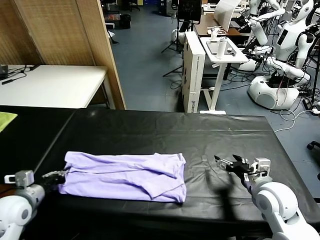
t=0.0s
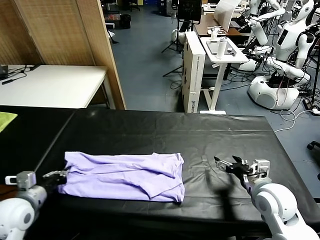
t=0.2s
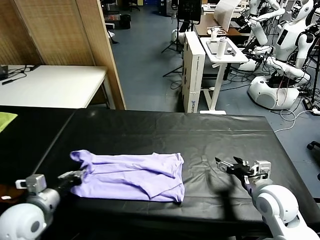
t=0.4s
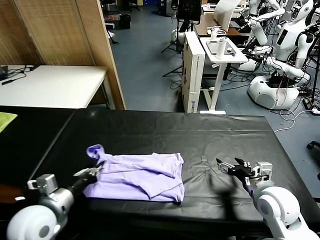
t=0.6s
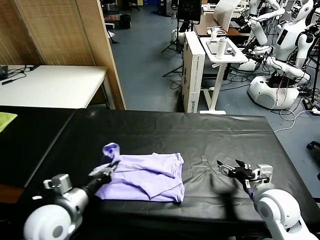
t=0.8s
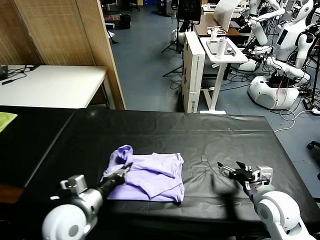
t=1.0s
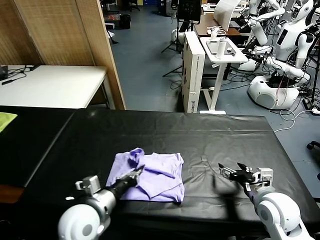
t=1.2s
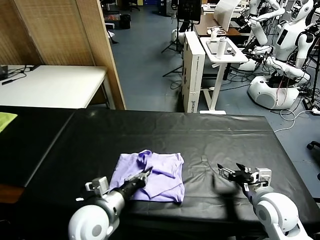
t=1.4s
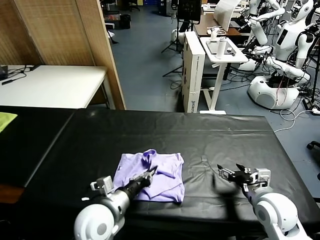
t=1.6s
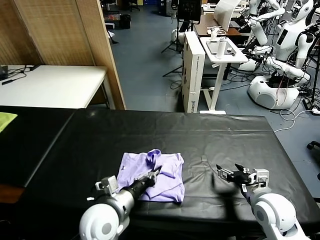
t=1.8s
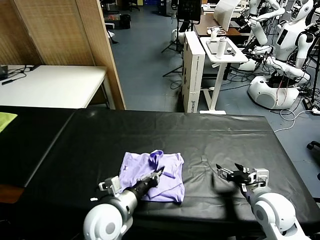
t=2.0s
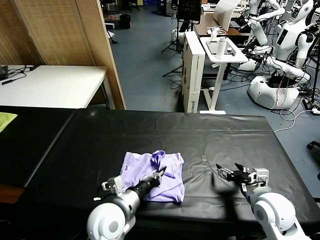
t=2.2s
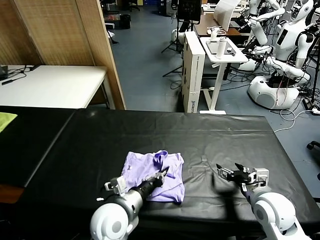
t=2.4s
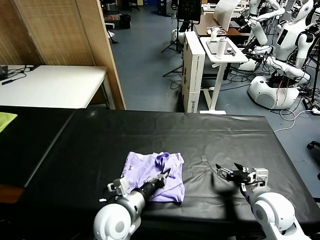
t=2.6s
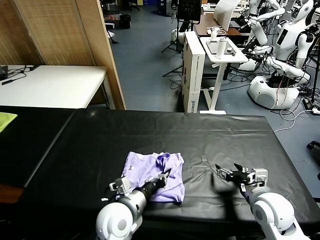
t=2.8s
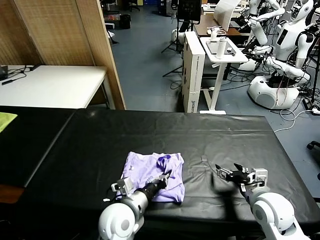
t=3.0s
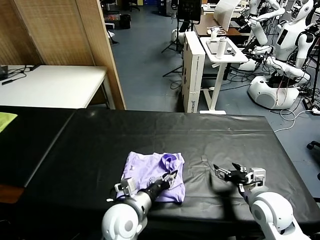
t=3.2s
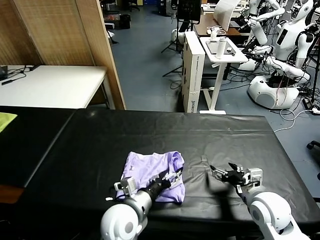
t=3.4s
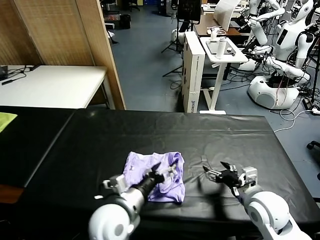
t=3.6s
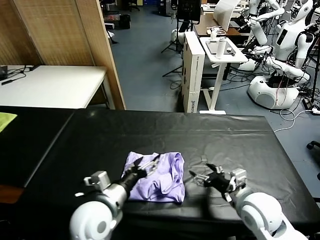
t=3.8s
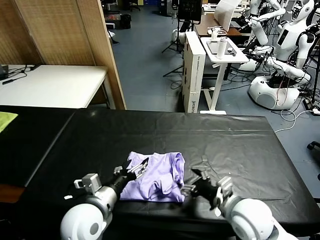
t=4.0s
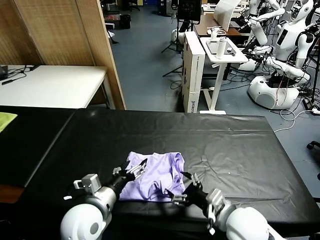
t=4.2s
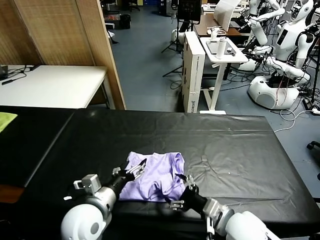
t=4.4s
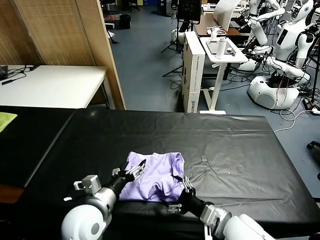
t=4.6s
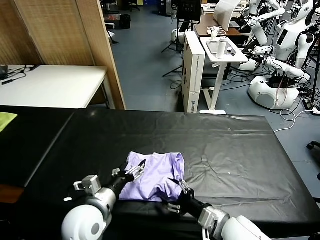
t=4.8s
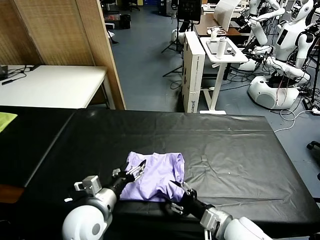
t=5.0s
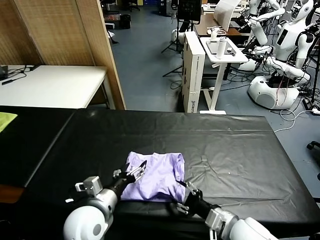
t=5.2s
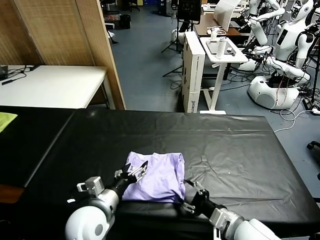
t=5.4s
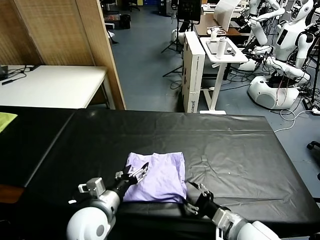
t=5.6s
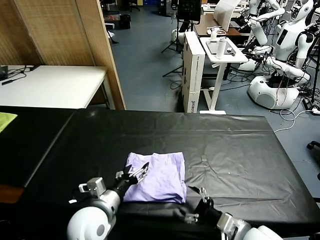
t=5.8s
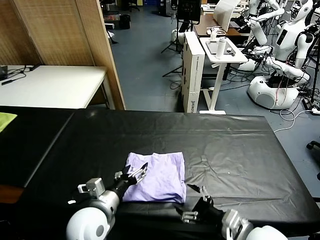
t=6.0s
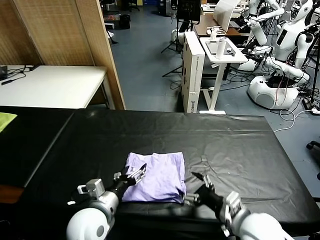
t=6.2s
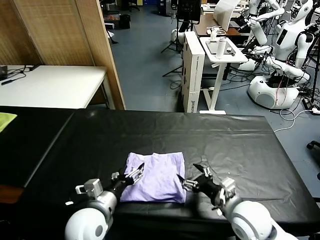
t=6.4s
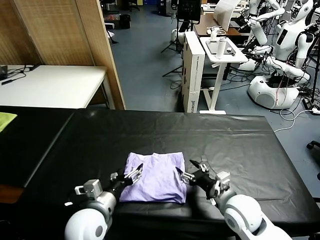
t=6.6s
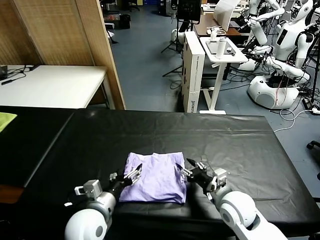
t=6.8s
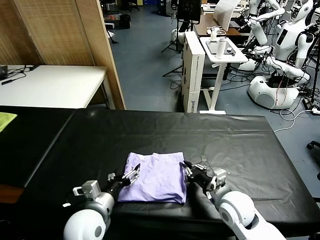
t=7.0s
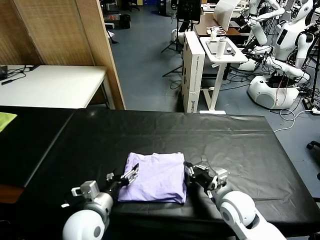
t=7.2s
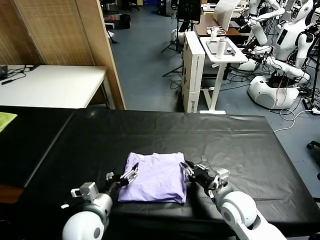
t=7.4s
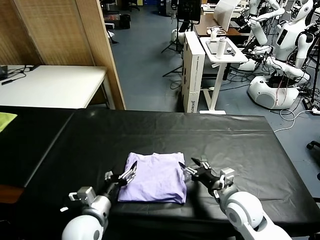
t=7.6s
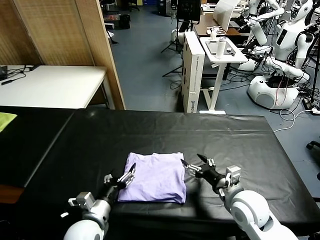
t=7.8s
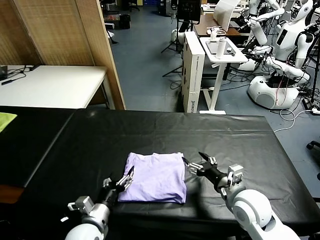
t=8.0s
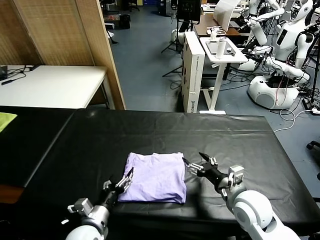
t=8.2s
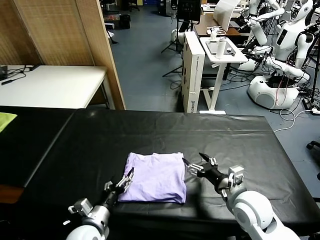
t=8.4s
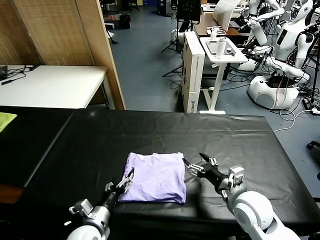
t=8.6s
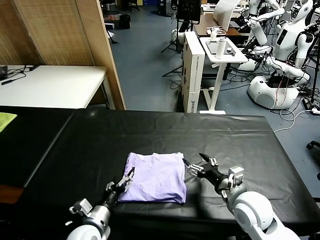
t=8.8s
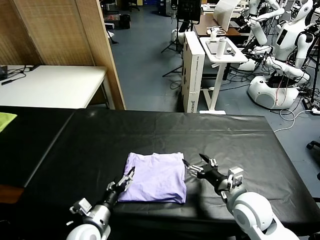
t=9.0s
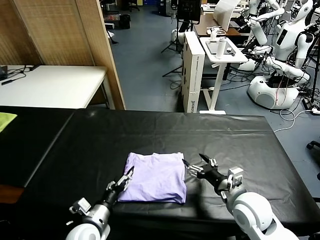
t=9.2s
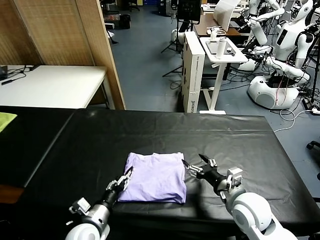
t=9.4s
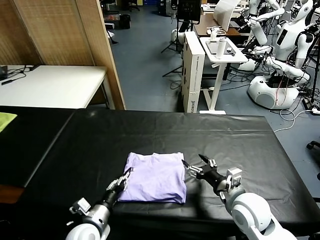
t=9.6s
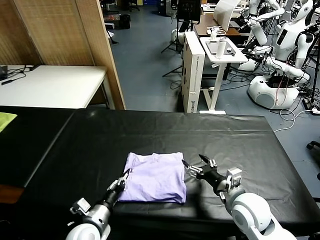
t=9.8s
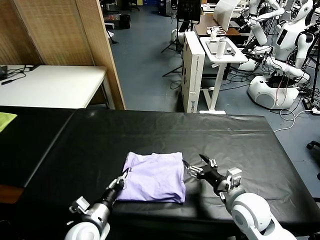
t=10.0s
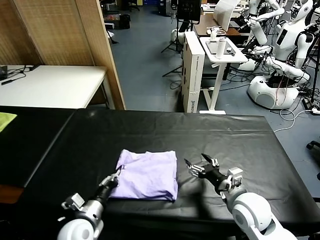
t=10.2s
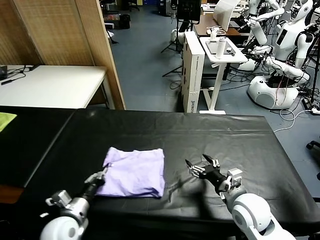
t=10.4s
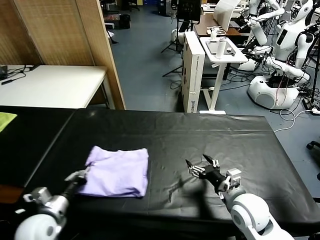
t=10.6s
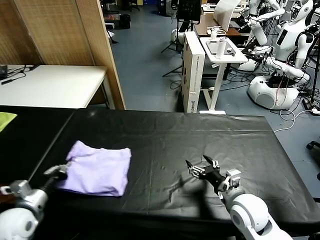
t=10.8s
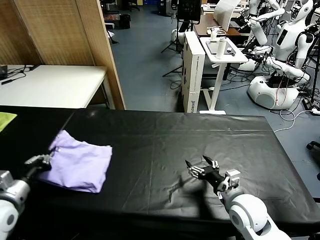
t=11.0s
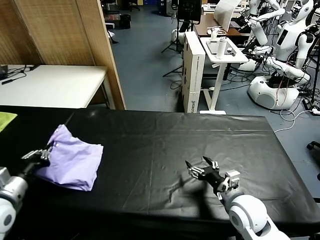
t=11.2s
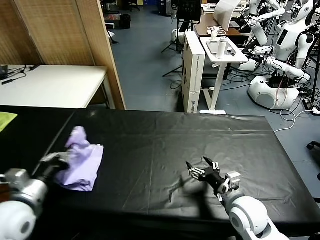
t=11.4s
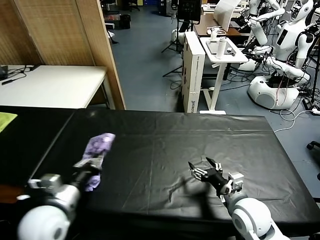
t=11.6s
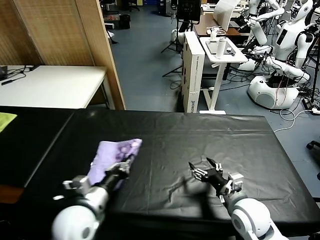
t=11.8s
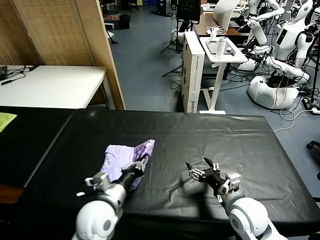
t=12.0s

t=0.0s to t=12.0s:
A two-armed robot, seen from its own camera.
Task of the whole recording: fold and organize the clothes.
Step, t=0.0s to t=3.6s: use the left gripper to drag the left edge of the fabric to the left and folds it over the right edge.
t=0.0s to t=1.6s: The left gripper is displaced to the right by approximately 25 cm.
t=1.6s to t=3.0s: The left gripper shifts by approximately 5 cm.
t=3.0s to t=4.4s: The left gripper is displaced to the left by about 10 cm, and opens, while the right gripper goes some 10 cm to the left and backward.
t=4.4s to t=6.0s: The right gripper moves approximately 5 cm.
t=6.0s to t=7.6s: The right gripper shifts about 10 cm forward, and closes and opens again.
t=7.6s to t=9.0s: The left gripper shifts some 5 cm downward.
t=9.0s to t=10.4s: The left gripper moves to the left, some 5 cm, and closes up.
t=10.4s to t=12.0s: The left gripper goes roughly 15 cm to the right and upward.

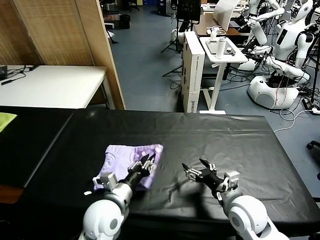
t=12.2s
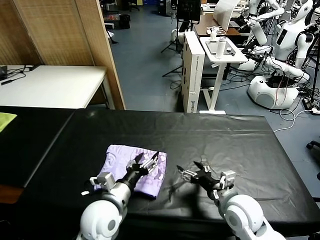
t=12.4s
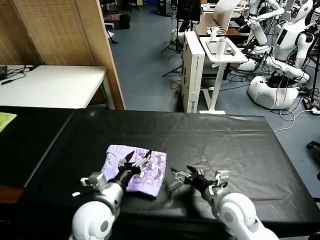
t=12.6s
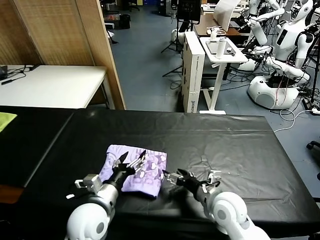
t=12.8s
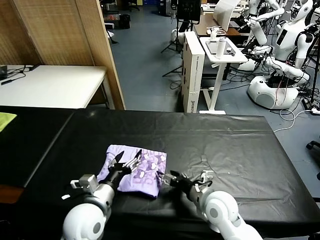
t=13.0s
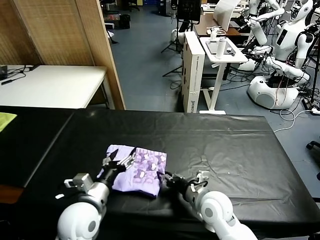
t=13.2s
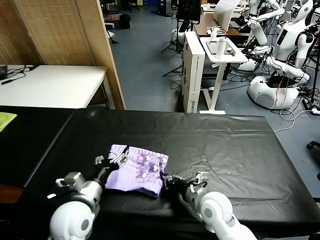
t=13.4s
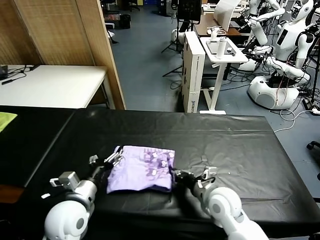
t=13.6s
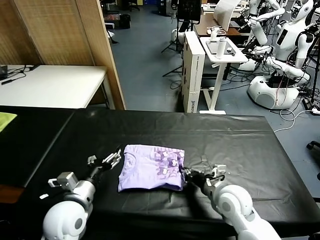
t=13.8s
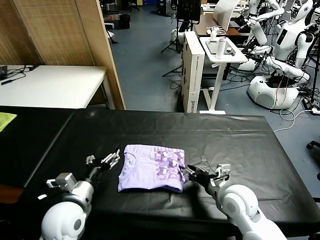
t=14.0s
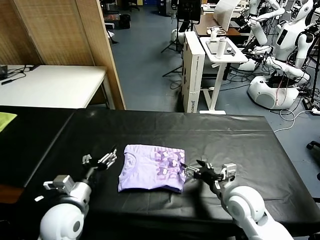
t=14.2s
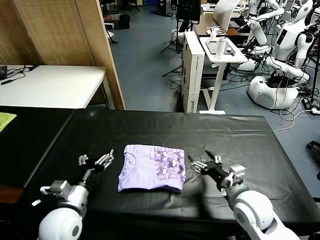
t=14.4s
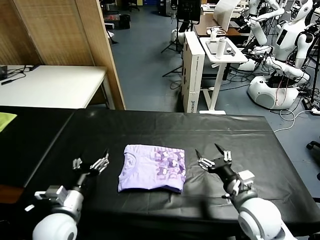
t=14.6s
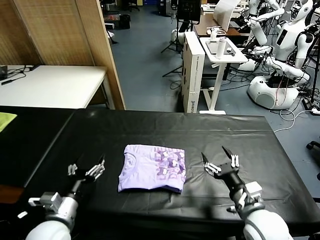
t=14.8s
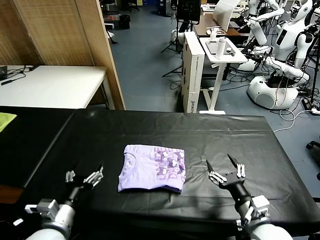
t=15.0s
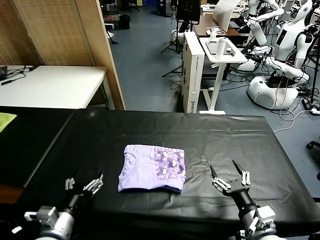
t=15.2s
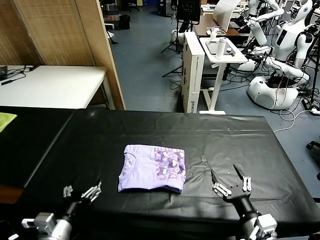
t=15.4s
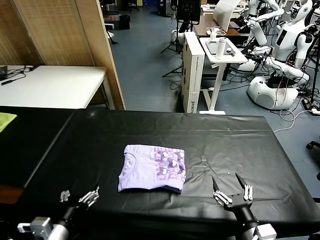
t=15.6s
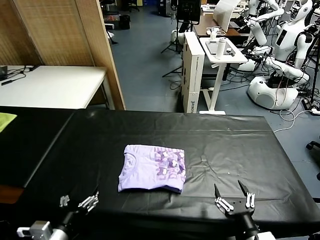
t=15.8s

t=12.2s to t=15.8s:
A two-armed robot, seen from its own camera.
Task of the whole recording: fold and organize the clothes.
Step, t=12.6s to t=14.0s: Drag the clothes to the center of the table.
t=12.2s to t=14.0s: The right gripper reaches roughly 10 cm to the left, then returns, and closes. Meanwhile the left gripper heads to the left, covering about 10 cm, and opens up.
t=14.0s to t=15.8s: The left gripper travels backward by approximately 10 cm. The right gripper goes approximately 20 cm backward, and opens up.

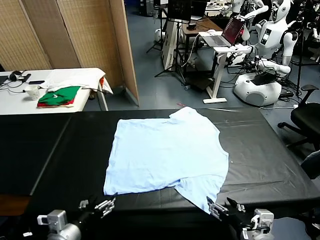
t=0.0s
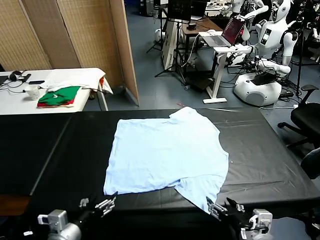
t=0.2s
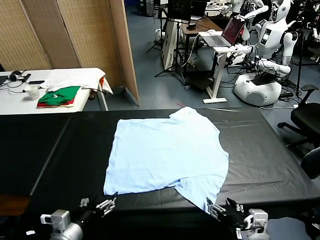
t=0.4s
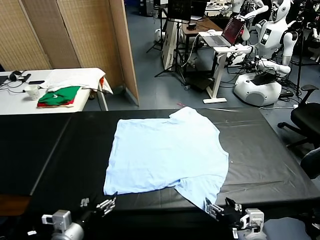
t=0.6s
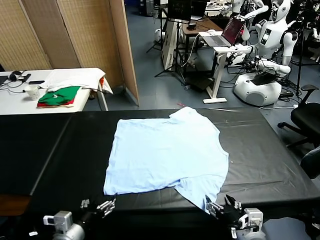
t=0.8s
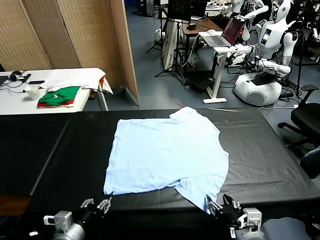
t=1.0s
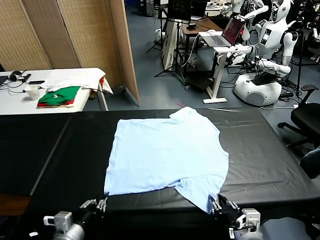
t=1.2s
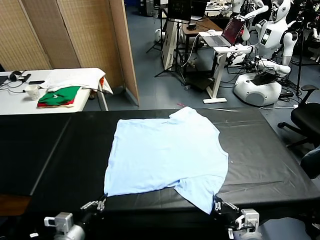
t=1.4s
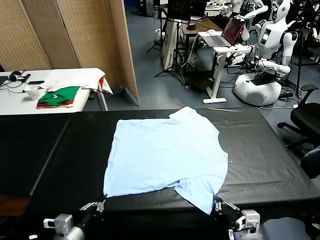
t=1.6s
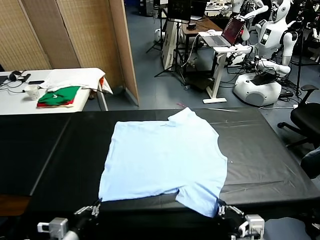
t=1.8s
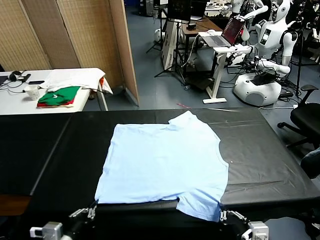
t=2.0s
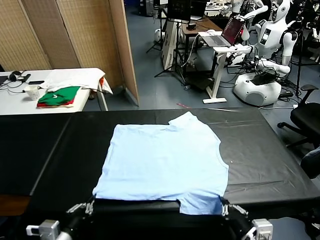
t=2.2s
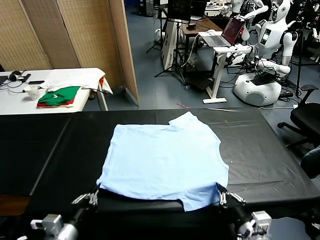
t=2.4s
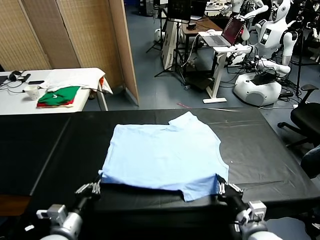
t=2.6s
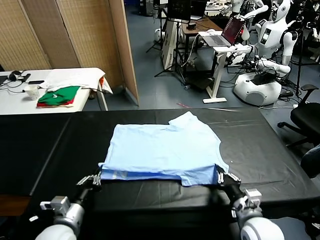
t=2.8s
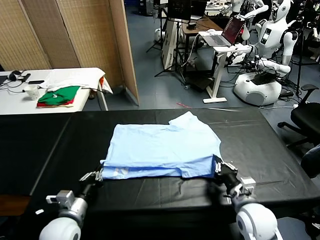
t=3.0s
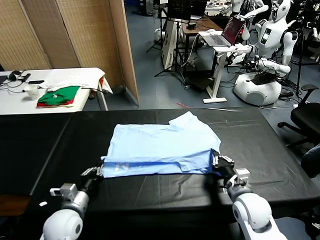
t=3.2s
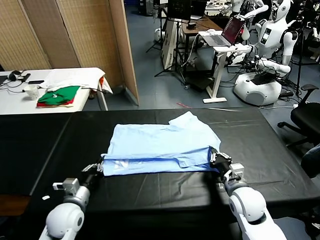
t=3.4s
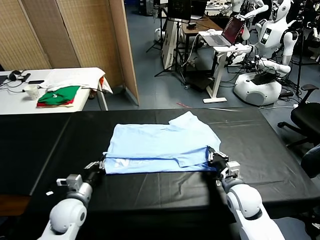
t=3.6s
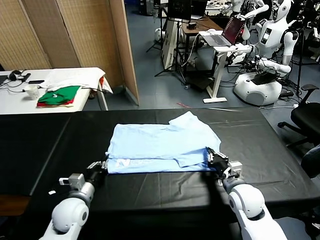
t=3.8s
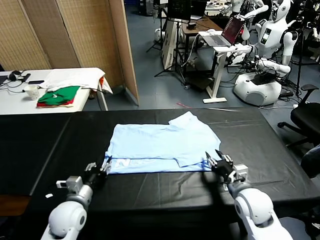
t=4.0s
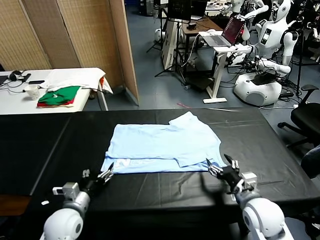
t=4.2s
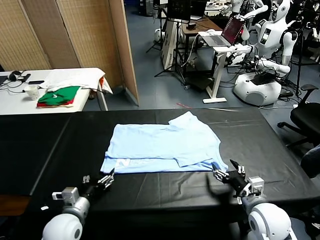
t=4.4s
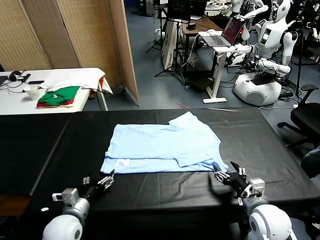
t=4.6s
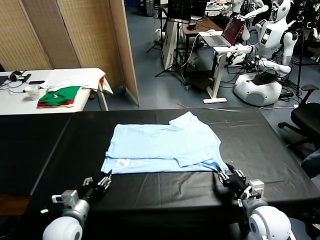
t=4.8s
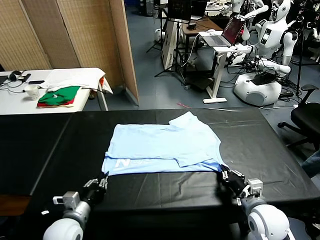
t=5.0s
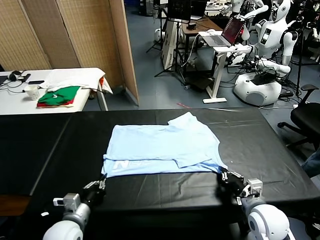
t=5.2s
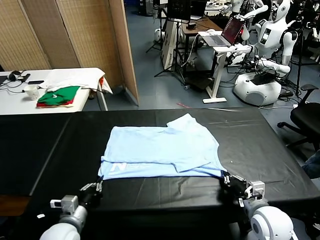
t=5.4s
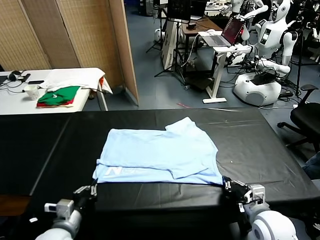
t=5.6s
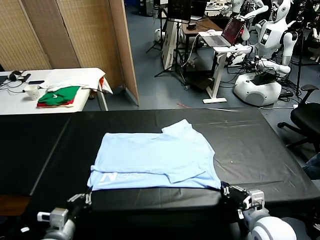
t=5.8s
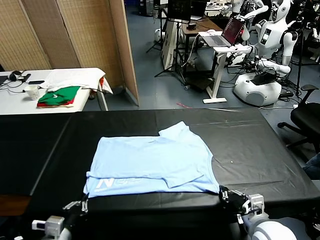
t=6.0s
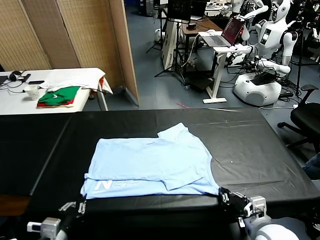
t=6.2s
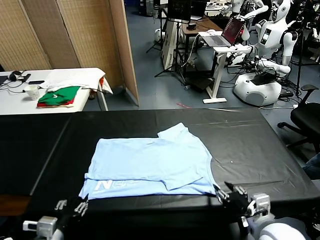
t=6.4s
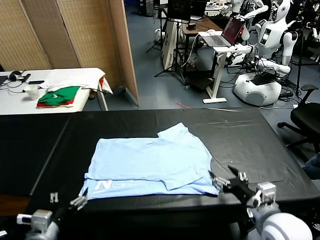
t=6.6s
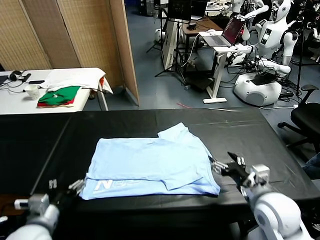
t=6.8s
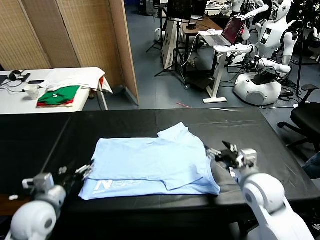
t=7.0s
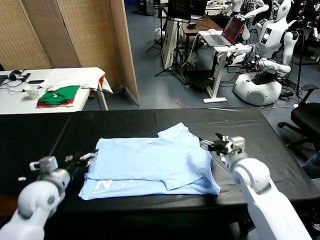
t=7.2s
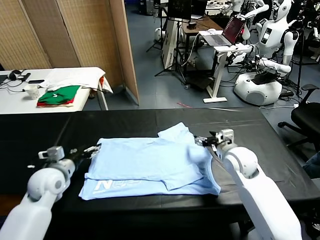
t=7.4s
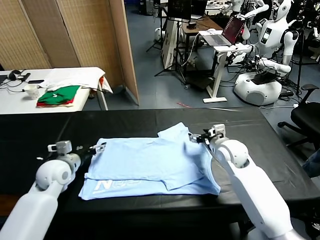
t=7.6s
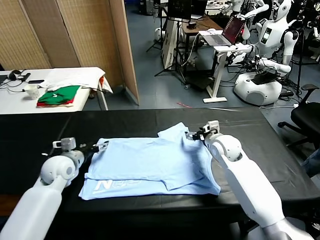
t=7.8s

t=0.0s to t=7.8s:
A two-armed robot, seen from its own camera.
Task of the whole recording: fold and organize the clothes.
Step, t=0.0s to t=1.4s: use both grippers simultaneously to clamp the lower edge of the clothing fabric.
Step, t=1.6s to t=4.0s: use both grippers to drag the lower edge of the fabric forward and fold it over the upper edge.
Step, t=4.2s to t=6.2s: Drag the clothes downward with both gripper.
t=1.6s to t=3.2s: The left gripper travels forward by roughly 10 cm. Meanwhile the right gripper heads forward, covering roughly 20 cm.
t=3.2s to t=4.6s: The right gripper shifts about 5 cm backward, and opens. Meanwhile the left gripper opens its fingers.
t=4.6s to t=6.2s: Both grippers move backward and upward, approximately 10 cm. The left gripper closes. The right gripper closes and opens again.
t=6.2s to t=7.8s: The grippers both shift forward by about 30 cm. The left gripper opens its fingers, while the right gripper opens its fingers.
